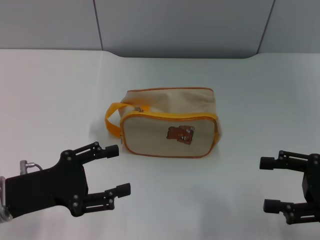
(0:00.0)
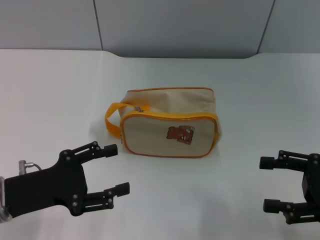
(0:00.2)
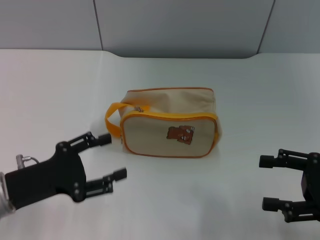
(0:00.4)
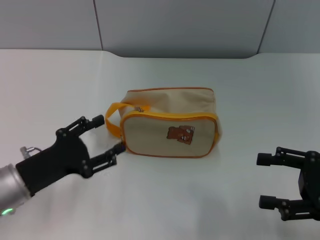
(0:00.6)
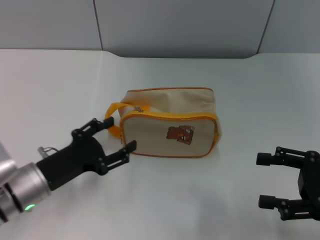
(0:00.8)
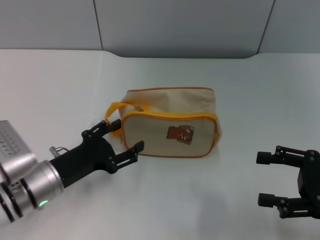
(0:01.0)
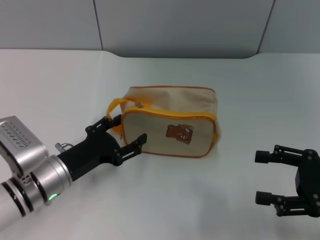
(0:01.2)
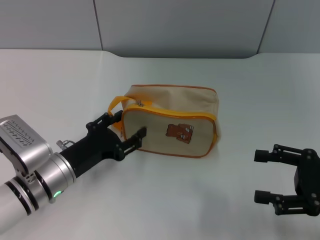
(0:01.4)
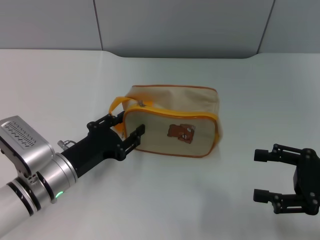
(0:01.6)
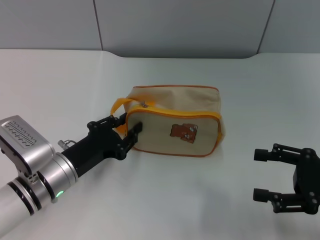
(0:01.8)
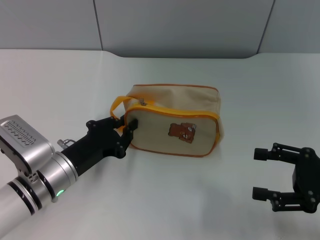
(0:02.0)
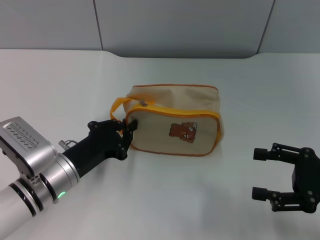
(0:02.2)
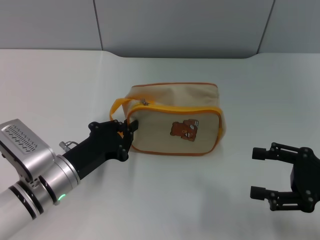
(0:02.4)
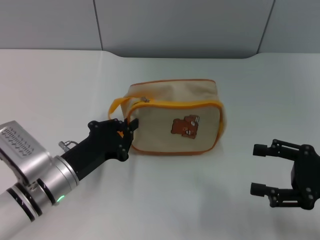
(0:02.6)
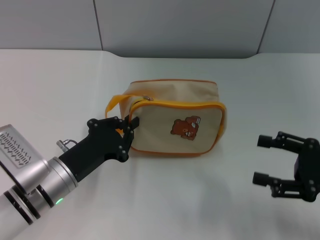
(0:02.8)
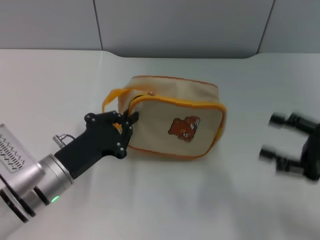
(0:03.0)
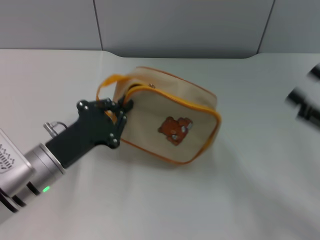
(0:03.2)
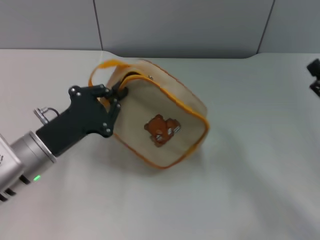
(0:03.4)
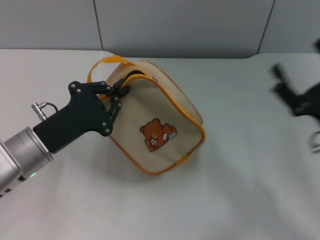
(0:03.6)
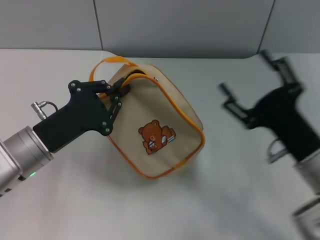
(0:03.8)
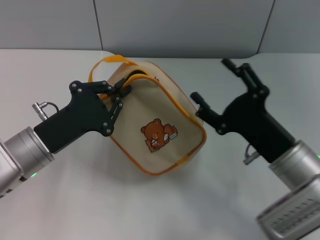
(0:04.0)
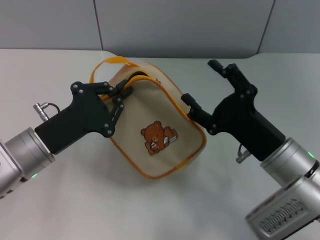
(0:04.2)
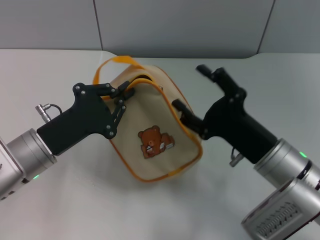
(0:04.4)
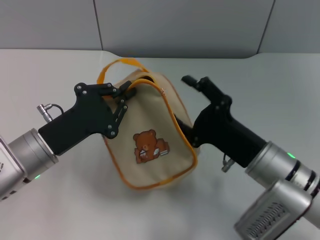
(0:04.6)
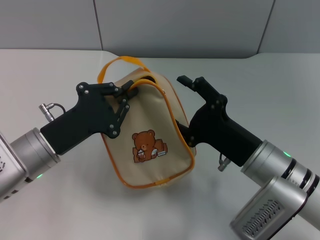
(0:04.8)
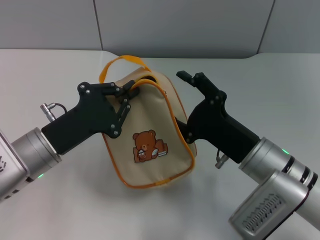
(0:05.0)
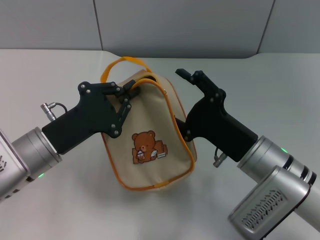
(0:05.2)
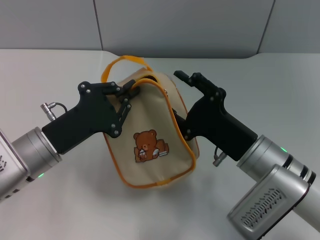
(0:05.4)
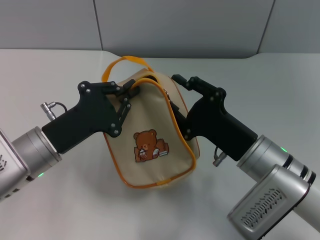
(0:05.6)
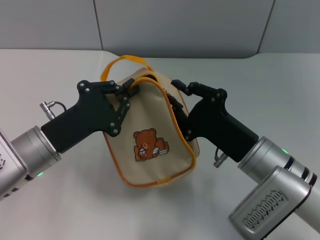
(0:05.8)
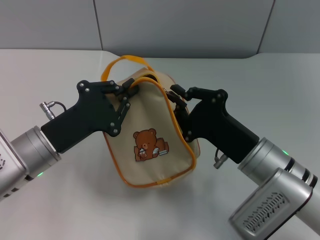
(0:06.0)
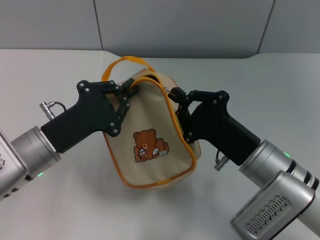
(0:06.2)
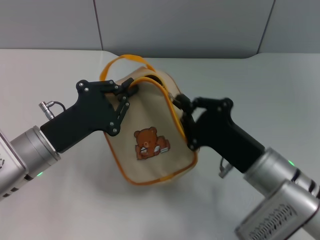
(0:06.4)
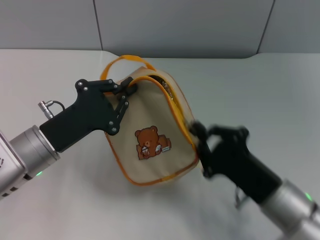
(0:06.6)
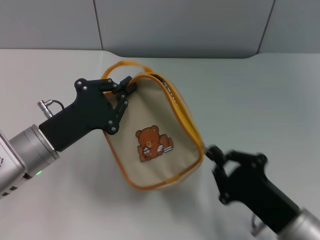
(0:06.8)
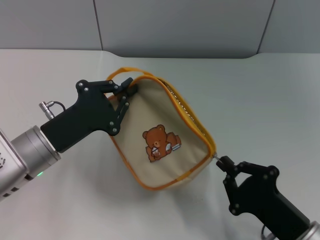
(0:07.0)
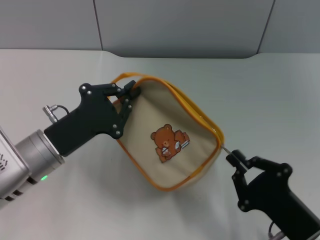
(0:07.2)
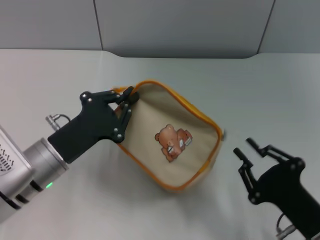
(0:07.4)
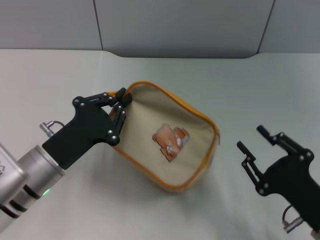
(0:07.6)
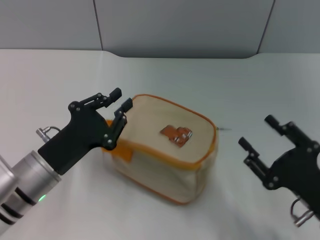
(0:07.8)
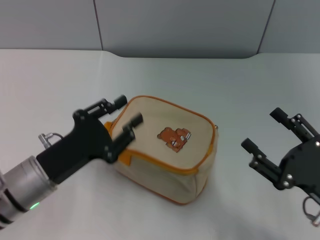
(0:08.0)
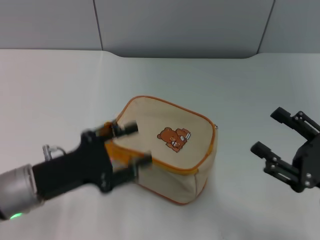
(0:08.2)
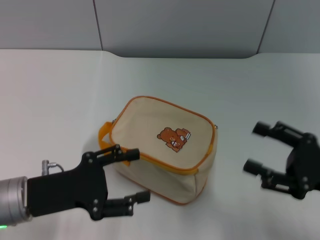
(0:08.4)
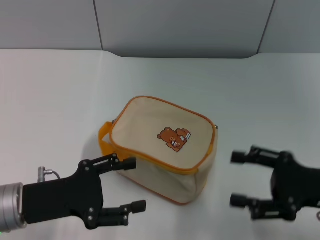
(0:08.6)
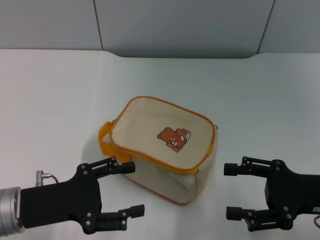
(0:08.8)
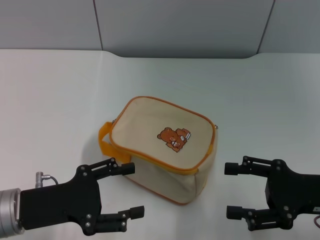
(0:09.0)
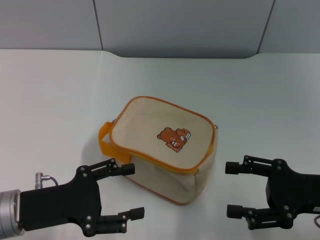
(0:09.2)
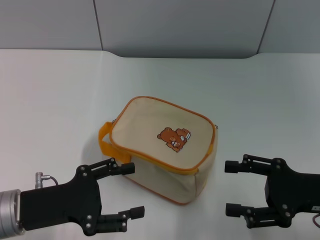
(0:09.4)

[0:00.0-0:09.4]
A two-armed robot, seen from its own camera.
Step, 0:00.0 to 0:03.2: Pick up the bag with left gripper.
Step, 0:03.4 to 0:07.4: Unzip the zipper of bag with right gripper.
Step, 0:07.6 to 0:07.8: Place the bag on the table with left gripper.
0:00.0 to 0:01.6: The left gripper is displaced to the right and downward by roughly 10 cm.
0:01.6 to 0:03.2: The left gripper closes its fingers.
0:03.2 to 0:04.8: The right gripper heads to the left, covering approximately 15 cm.
0:04.8 to 0:06.2: The right gripper closes up.
0:06.2 to 0:07.8: The right gripper moves to the right and backward, some 15 cm, and opens up.
0:07.8 to 0:09.4: The right gripper travels forward and upward by roughly 10 cm, and opens its fingers. The left gripper moves roughly 5 cm, and opens.

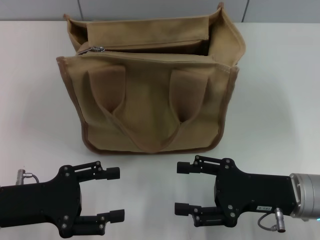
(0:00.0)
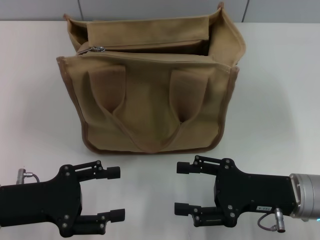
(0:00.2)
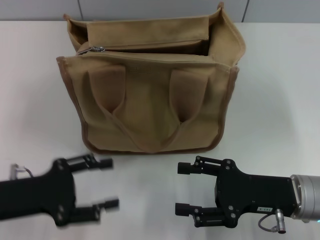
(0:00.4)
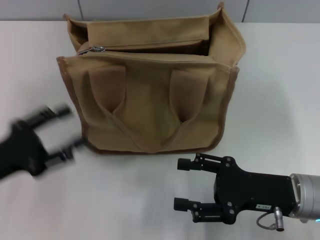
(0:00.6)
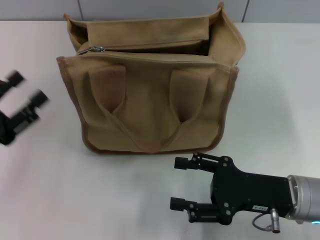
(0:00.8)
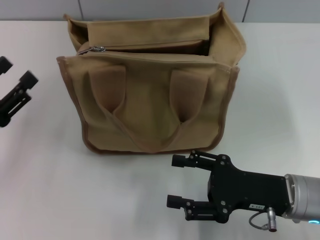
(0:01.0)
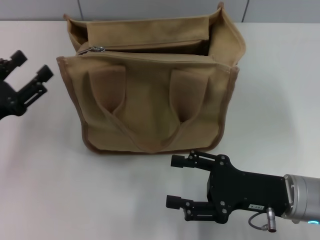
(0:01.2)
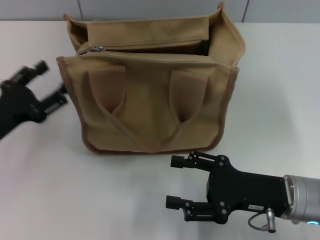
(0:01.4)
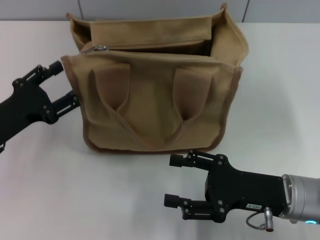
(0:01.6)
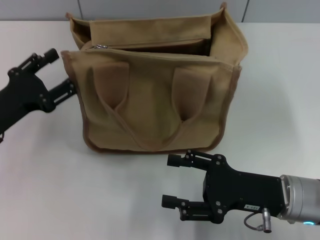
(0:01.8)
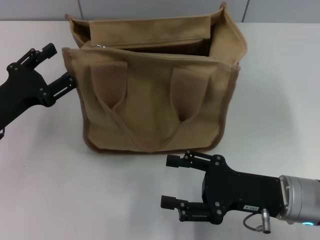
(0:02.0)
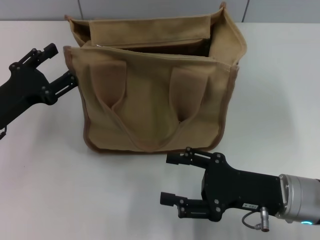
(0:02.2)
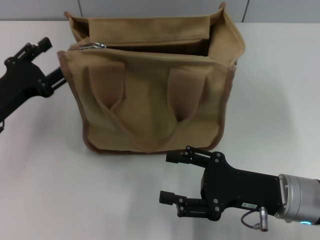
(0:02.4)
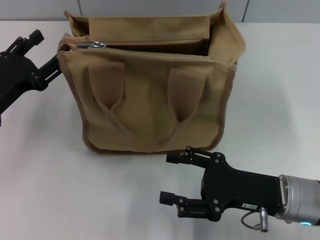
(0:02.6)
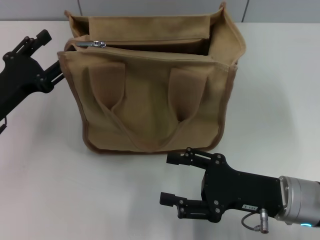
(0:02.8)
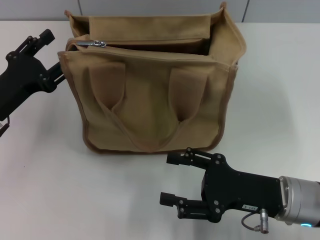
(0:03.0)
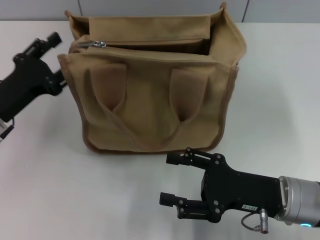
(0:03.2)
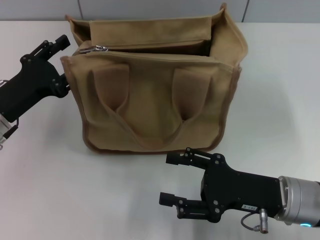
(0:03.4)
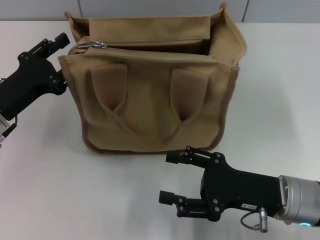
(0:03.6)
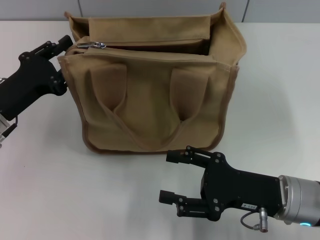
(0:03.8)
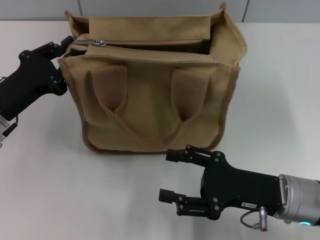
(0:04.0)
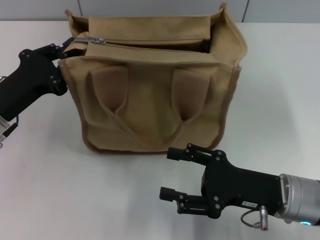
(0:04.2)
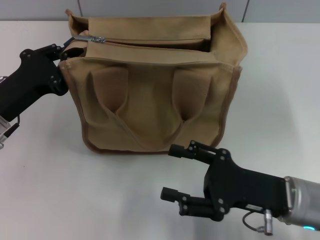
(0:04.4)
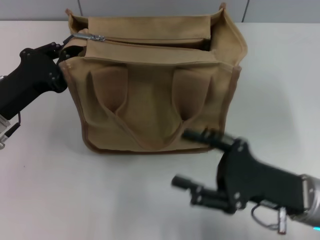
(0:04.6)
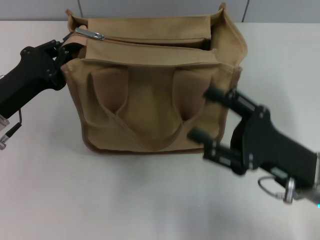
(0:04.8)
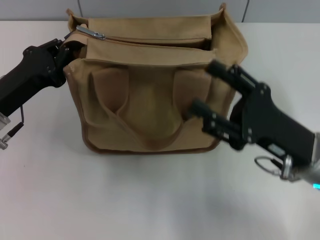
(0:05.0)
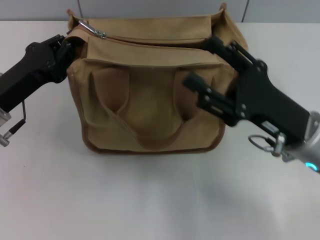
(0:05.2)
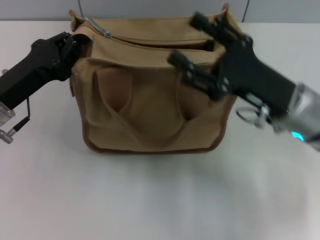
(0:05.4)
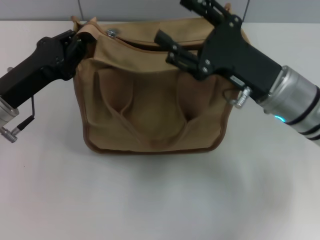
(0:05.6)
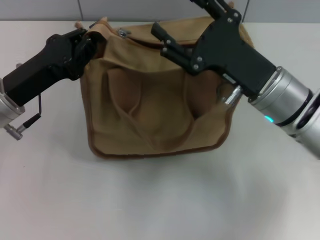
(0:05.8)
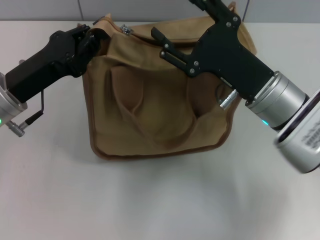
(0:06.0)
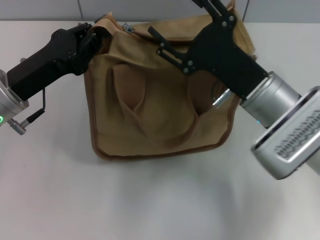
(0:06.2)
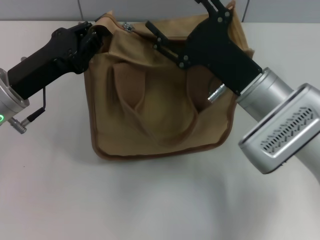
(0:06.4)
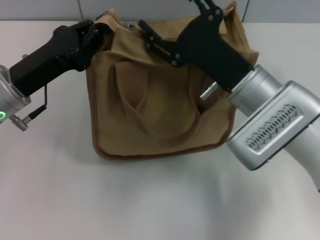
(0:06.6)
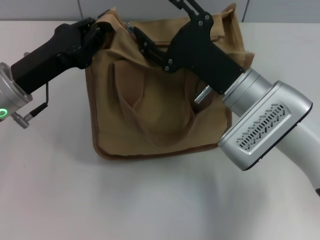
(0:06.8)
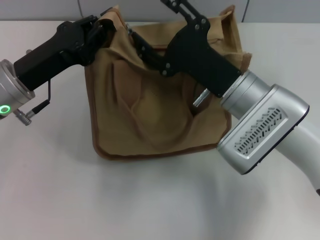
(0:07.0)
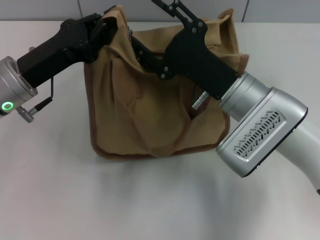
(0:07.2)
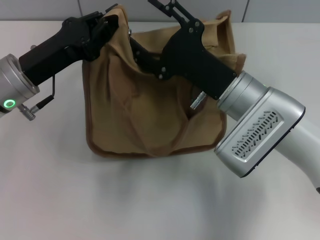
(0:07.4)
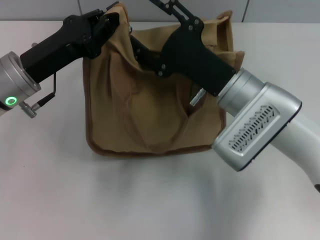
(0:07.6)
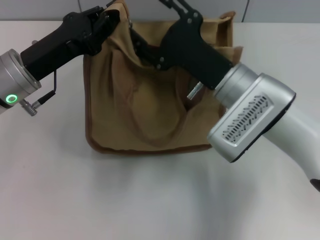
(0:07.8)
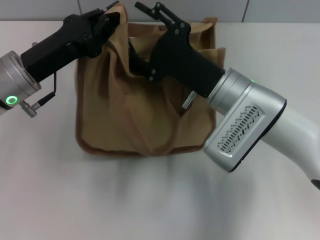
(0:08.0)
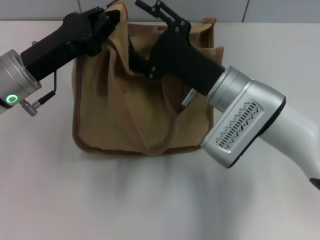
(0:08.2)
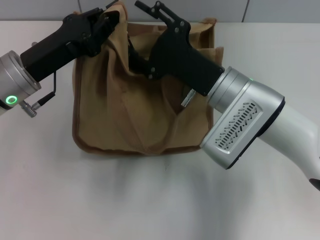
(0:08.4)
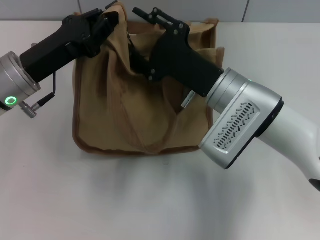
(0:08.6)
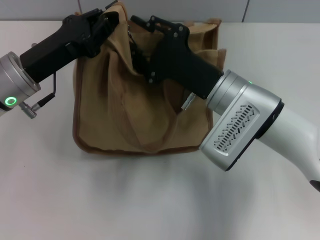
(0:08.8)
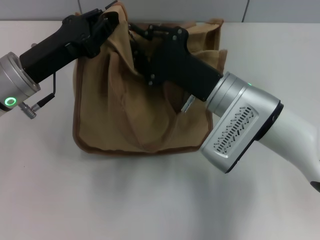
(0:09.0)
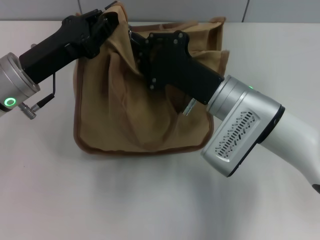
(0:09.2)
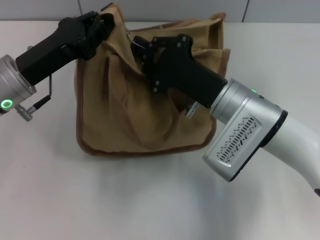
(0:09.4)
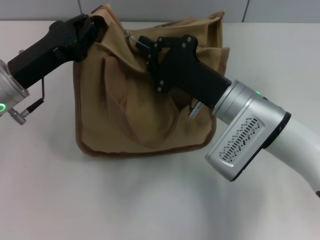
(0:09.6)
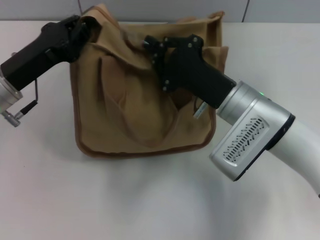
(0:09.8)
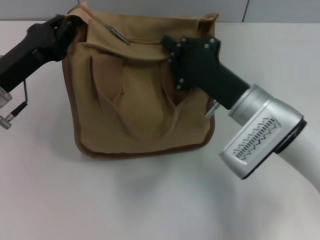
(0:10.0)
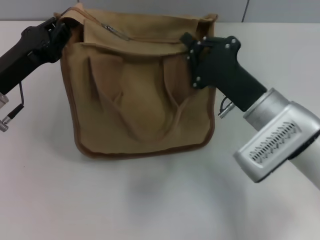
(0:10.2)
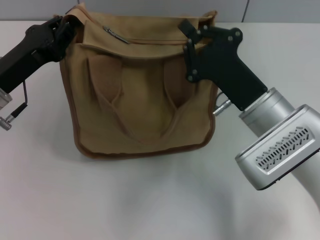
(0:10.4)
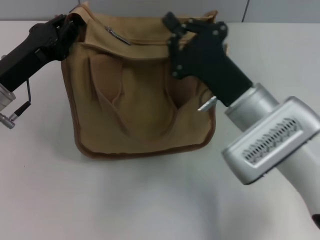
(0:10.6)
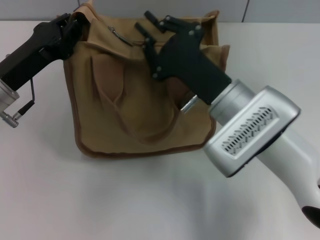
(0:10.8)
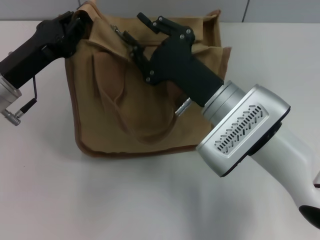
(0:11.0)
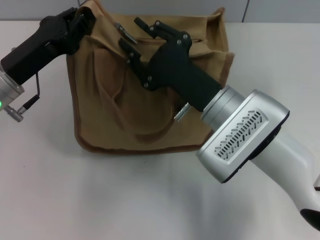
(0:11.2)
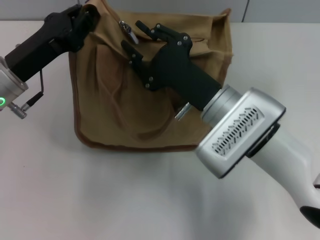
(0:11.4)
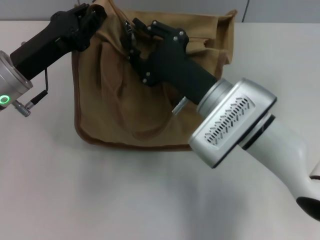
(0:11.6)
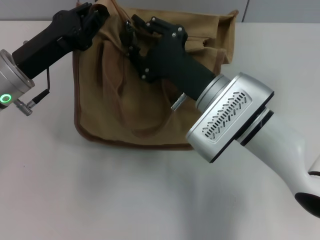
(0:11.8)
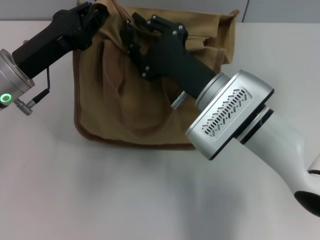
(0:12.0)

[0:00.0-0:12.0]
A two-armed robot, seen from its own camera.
0:00.0 to 0:01.6: The left gripper heads forward, covering some 5 cm.
0:01.6 to 0:03.0: The grippers make only small movements.
0:03.0 to 0:04.4: The left gripper closes up.
0:04.4 to 0:06.0: The right gripper heads forward and upward, covering about 10 cm.
0:07.6 to 0:09.0: The right gripper closes up.
0:09.0 to 0:10.4: The right gripper closes up.
0:10.4 to 0:12.0: The right gripper heads to the left, covering about 5 cm, and opens up.

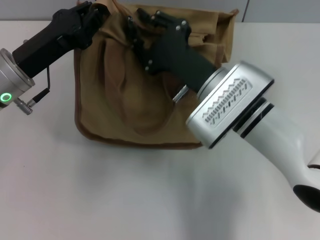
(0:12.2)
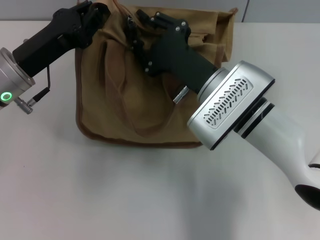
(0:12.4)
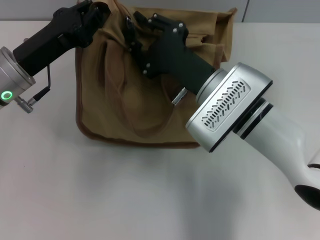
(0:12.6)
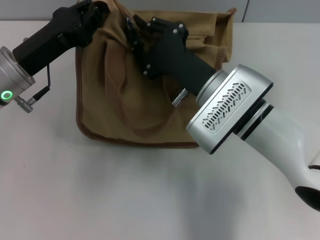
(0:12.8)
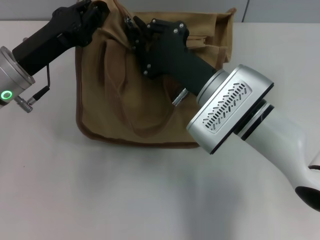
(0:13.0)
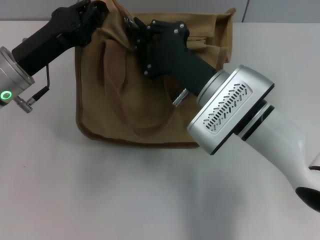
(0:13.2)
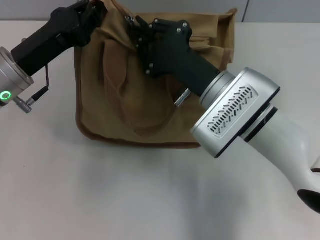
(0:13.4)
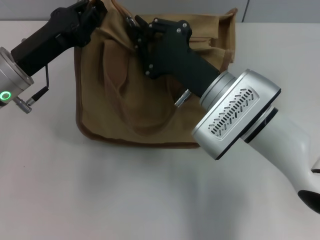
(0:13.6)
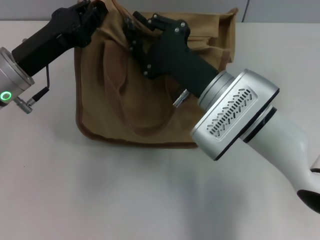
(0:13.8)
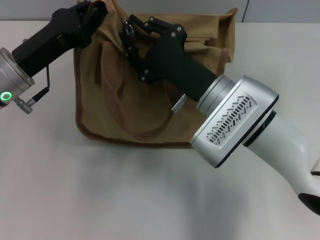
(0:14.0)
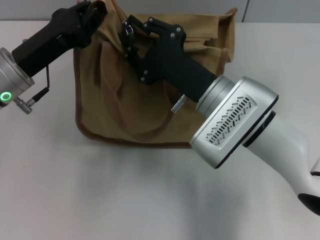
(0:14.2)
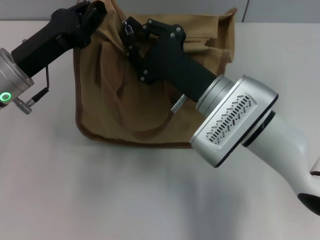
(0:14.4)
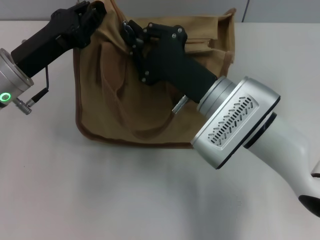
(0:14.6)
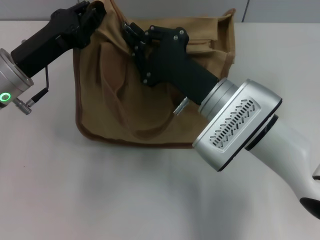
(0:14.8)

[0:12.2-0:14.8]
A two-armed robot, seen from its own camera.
0:12.2 to 0:13.4: The right gripper closes.
0:13.4 to 0:14.8: Both grippers stay about where they are.
